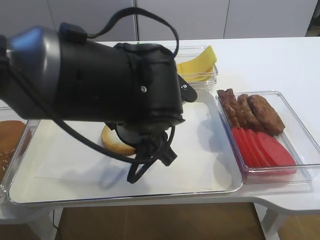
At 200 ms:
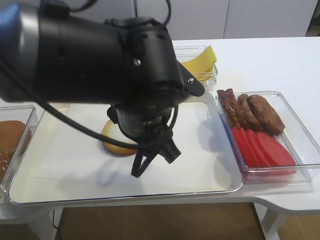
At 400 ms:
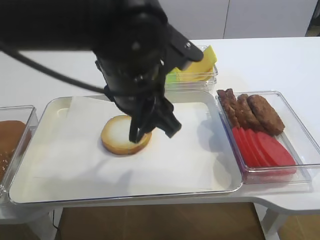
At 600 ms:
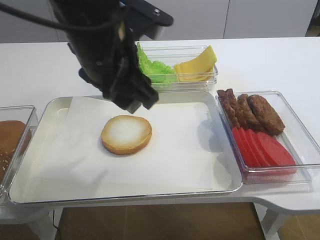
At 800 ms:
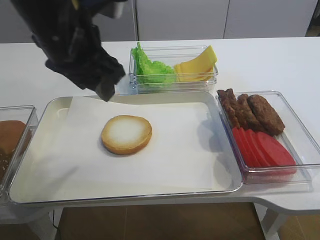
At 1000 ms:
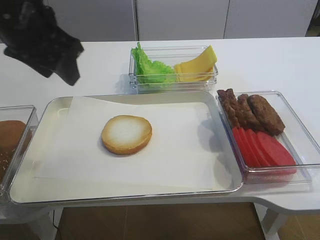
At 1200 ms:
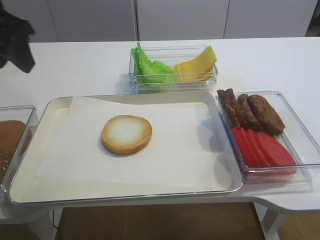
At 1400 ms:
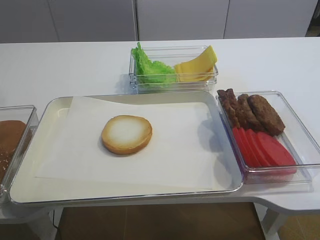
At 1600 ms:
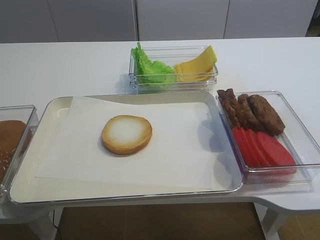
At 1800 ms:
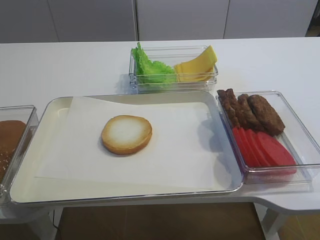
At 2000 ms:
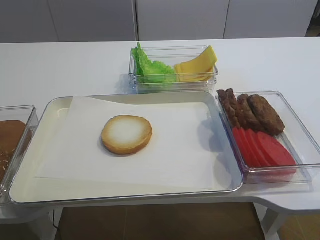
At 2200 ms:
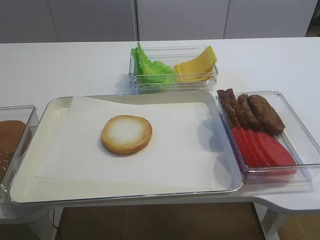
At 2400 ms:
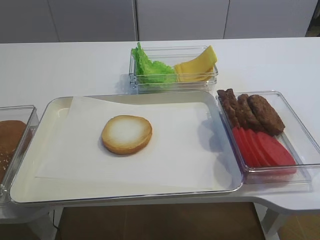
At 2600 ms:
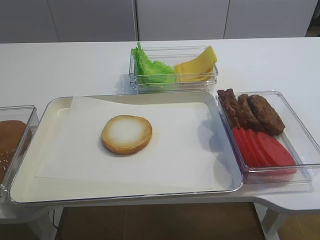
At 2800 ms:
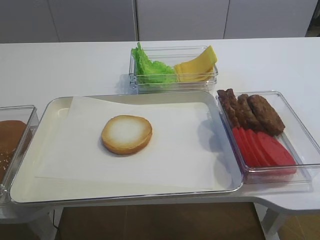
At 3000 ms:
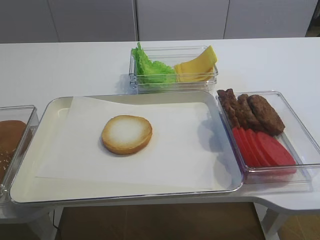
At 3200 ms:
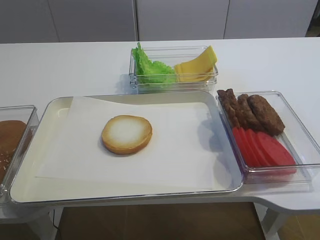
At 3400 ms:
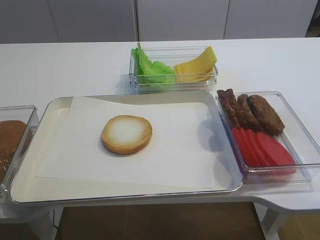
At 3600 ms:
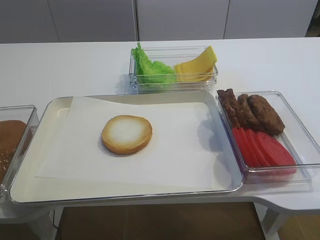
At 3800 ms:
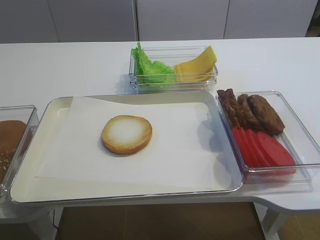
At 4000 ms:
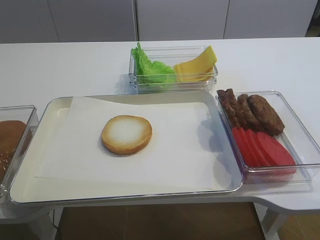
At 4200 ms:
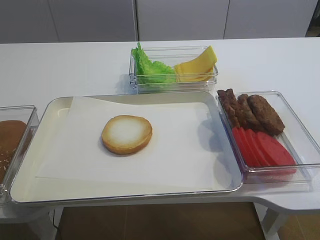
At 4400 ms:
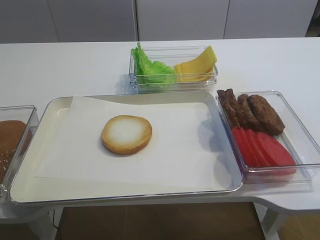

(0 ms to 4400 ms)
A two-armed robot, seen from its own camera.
0 ms - 1400 ms: The left gripper travels to the left and upward by about 30 cm.
